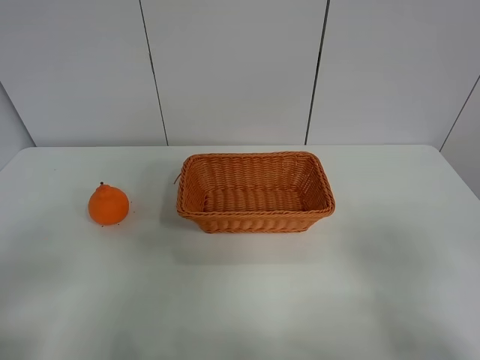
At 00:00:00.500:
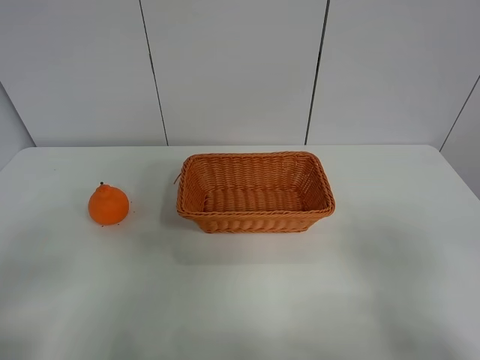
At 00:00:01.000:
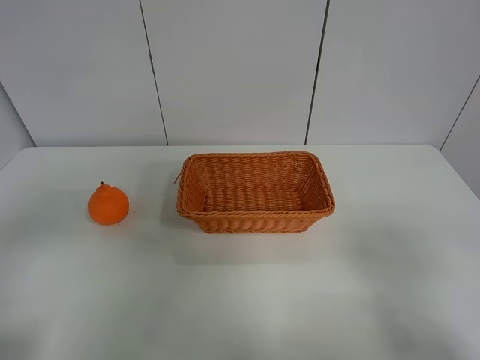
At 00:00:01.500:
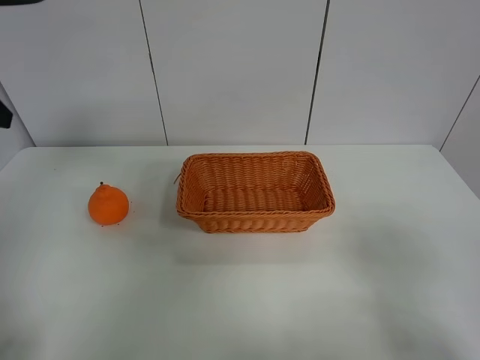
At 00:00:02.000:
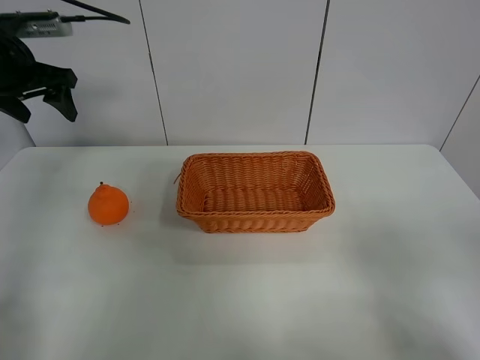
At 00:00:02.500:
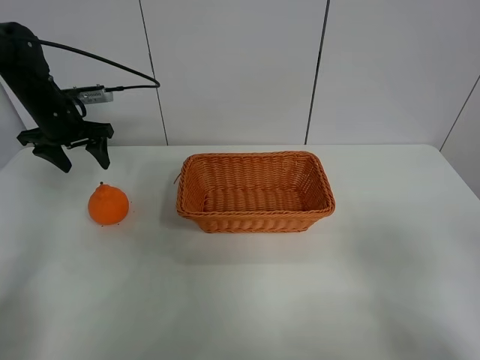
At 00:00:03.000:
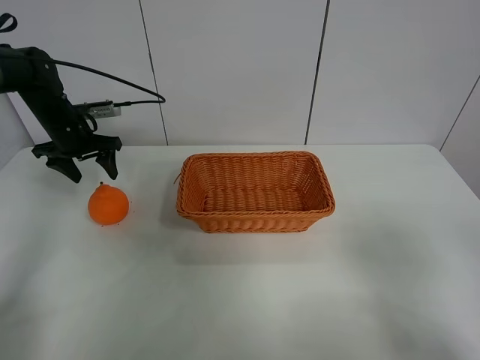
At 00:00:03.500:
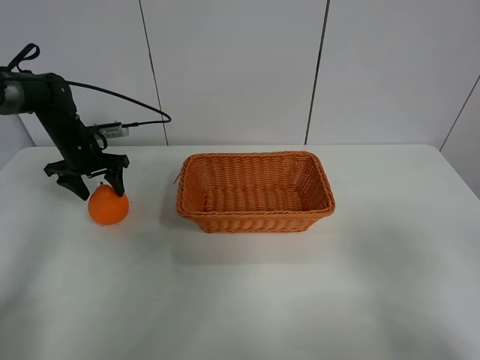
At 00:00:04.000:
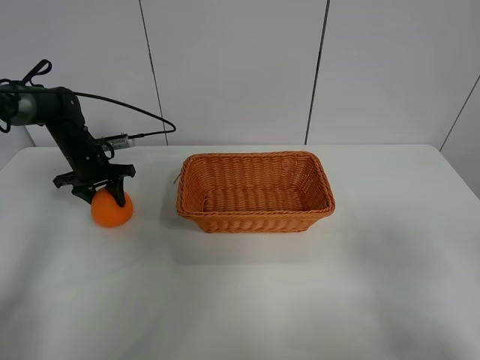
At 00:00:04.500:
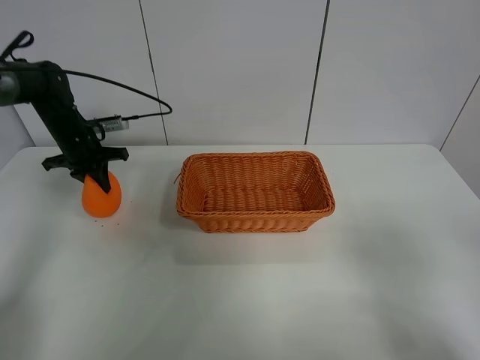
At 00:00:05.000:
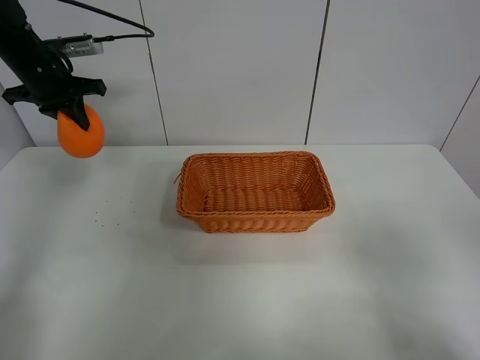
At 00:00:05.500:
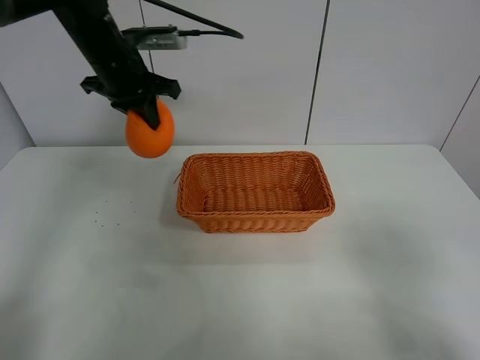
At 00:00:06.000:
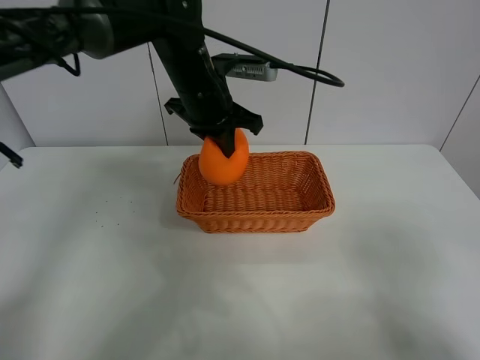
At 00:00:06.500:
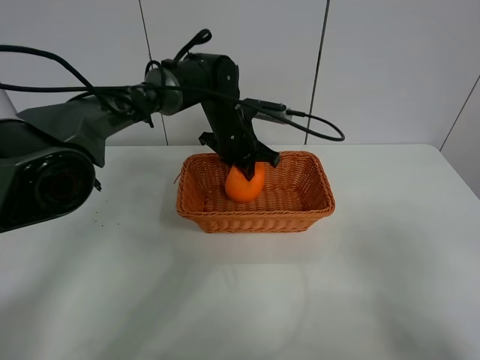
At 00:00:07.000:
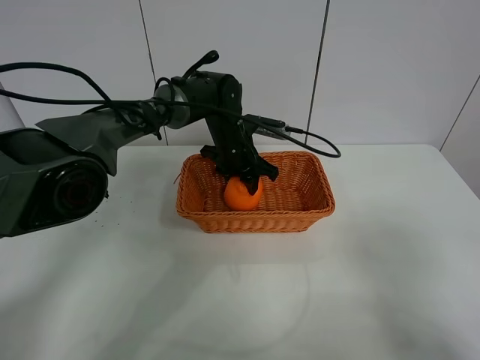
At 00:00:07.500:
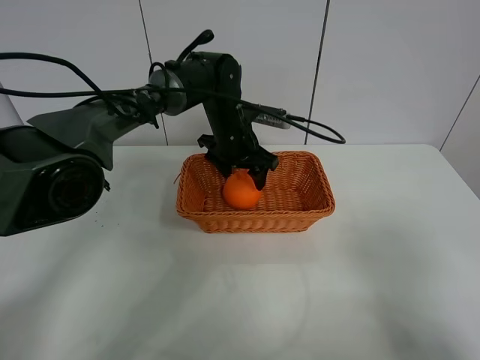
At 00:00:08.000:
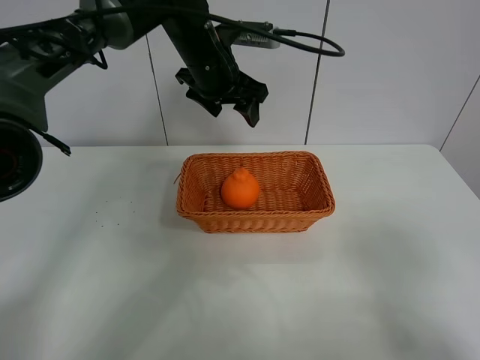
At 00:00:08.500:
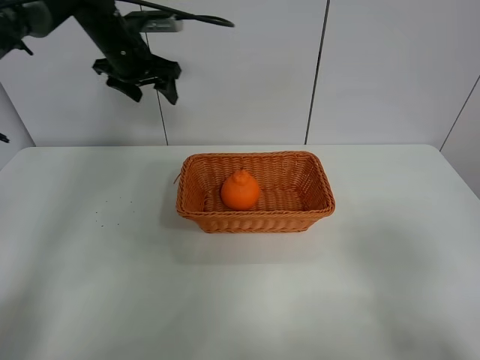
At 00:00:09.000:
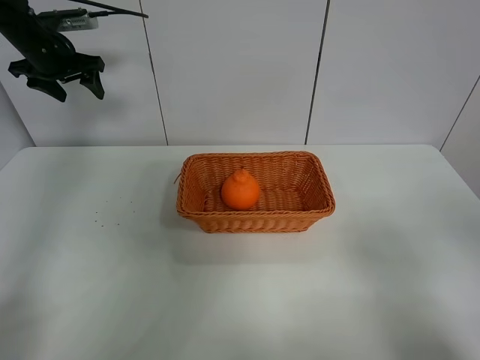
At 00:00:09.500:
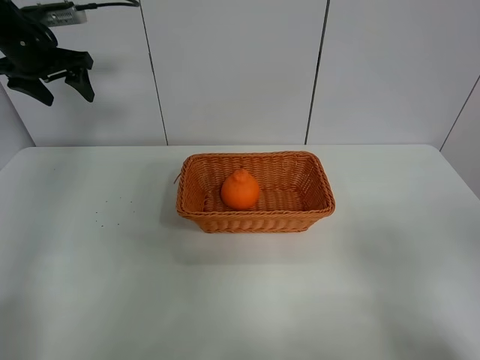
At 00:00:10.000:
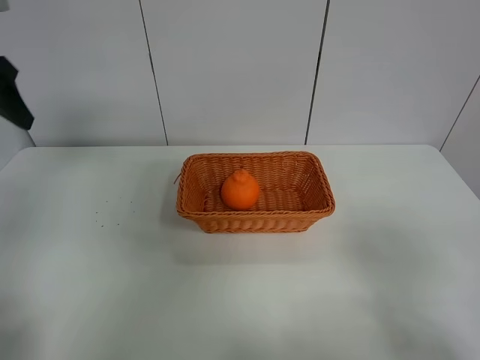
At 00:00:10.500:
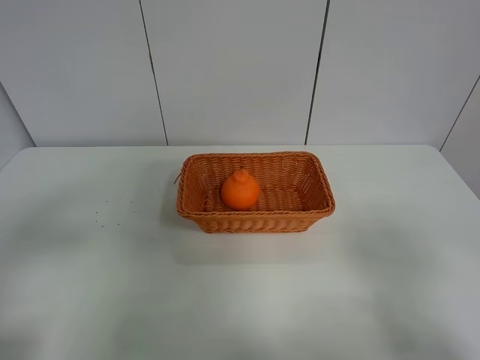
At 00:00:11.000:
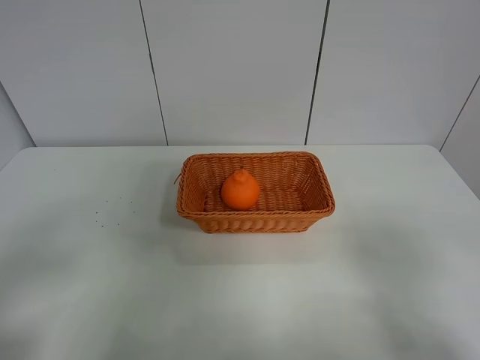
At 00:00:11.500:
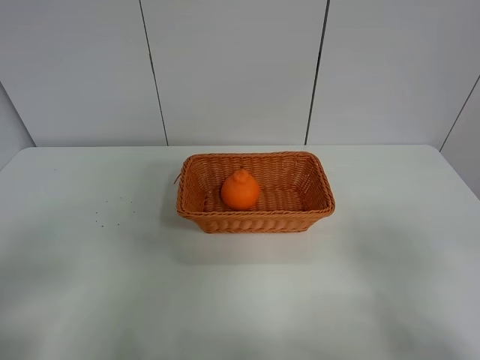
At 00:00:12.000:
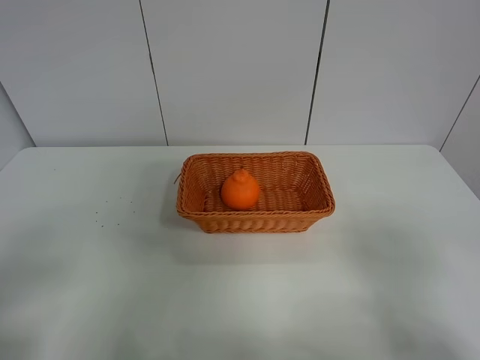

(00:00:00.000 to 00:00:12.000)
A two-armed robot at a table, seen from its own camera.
Task of the whole recording: left gripper grabs oranges and puts them in the basket.
Step, 00:00:00.000 - 00:00:04.000: Grasp the orange with left gripper.
Step, 00:00:04.500 - 00:00:08.500: Place the orange in the basket with left gripper.
00:00:00.000 - 00:00:02.000: The left gripper travels forward by some 40 cm.
00:00:02.000 - 00:00:04.000: The left gripper moves downward, some 20 cm, and closes up.
00:00:04.000 - 00:00:06.000: The left gripper heads to the right and upward, covering roughly 30 cm, and closes its fingers.
00:00:06.000 - 00:00:08.000: The left gripper reaches some 10 cm downward, then returns, and opens its fingers.
00:00:08.000 - 00:00:10.000: The left gripper goes about 30 cm to the left and backward.
00:00:10.000 - 00:00:12.000: The left gripper travels backward by approximately 30 cm.
